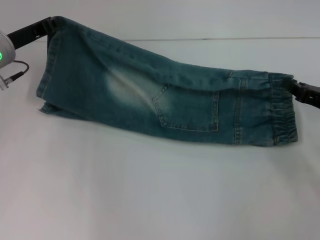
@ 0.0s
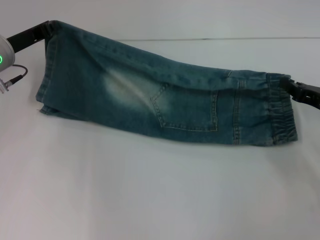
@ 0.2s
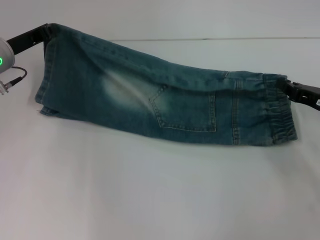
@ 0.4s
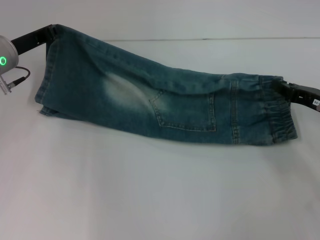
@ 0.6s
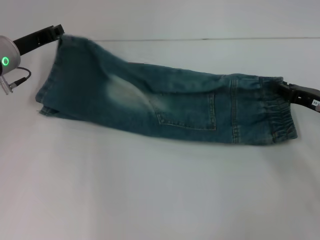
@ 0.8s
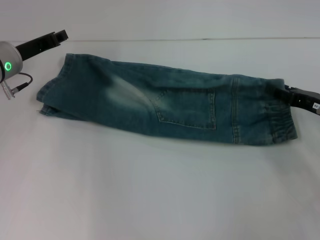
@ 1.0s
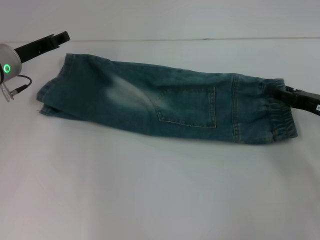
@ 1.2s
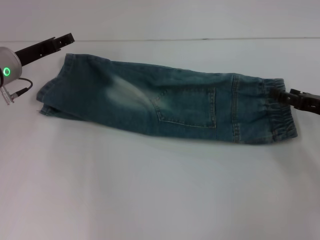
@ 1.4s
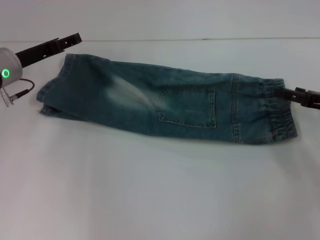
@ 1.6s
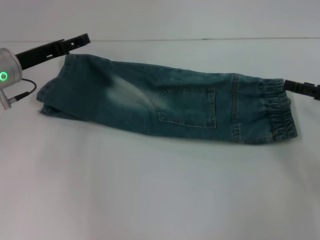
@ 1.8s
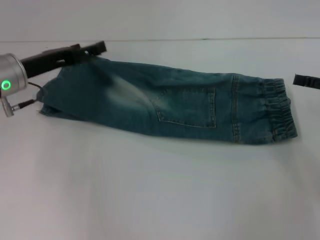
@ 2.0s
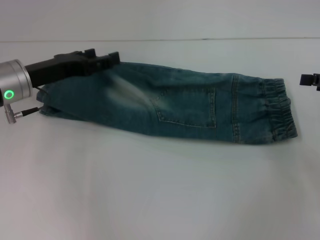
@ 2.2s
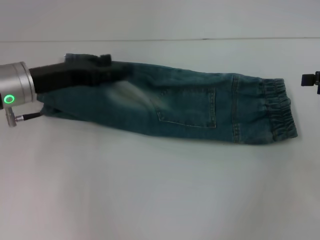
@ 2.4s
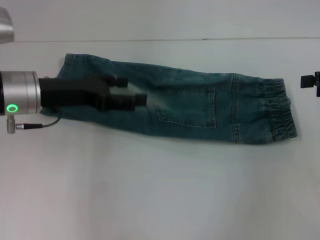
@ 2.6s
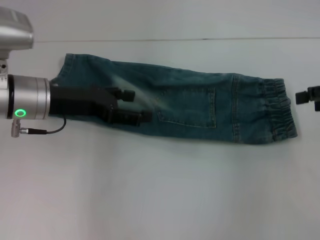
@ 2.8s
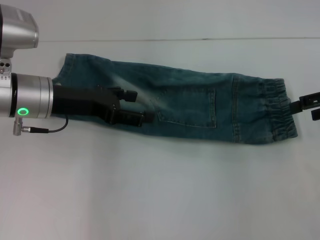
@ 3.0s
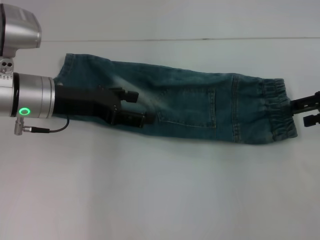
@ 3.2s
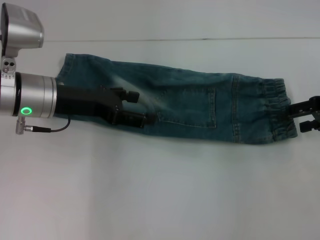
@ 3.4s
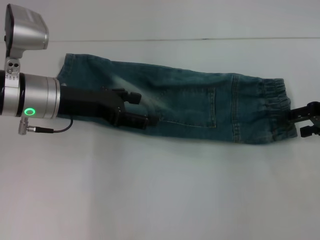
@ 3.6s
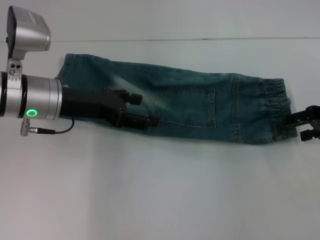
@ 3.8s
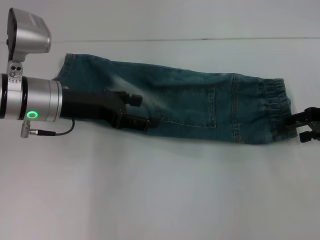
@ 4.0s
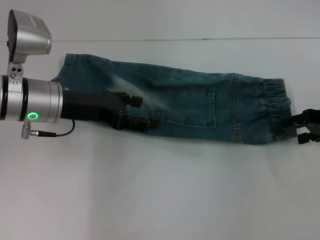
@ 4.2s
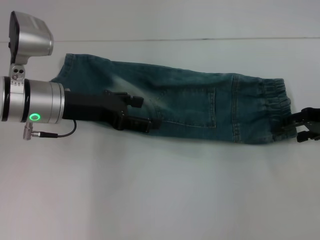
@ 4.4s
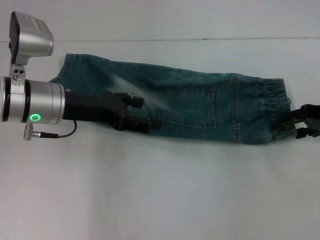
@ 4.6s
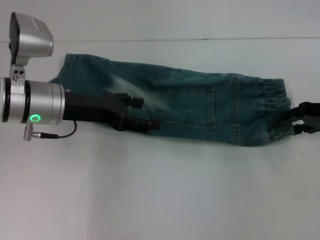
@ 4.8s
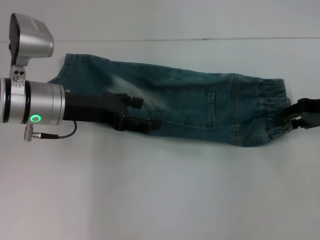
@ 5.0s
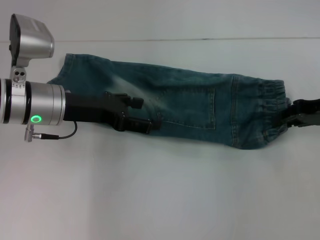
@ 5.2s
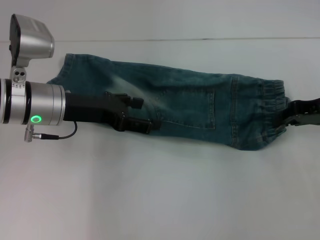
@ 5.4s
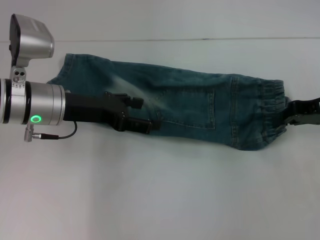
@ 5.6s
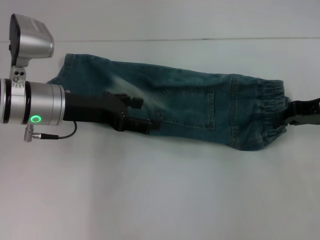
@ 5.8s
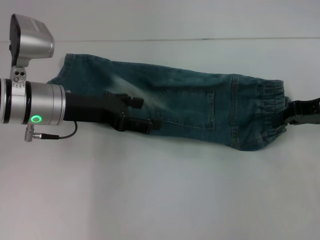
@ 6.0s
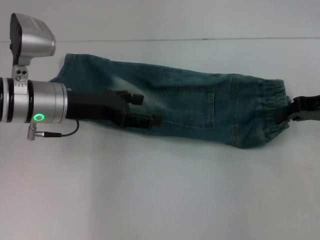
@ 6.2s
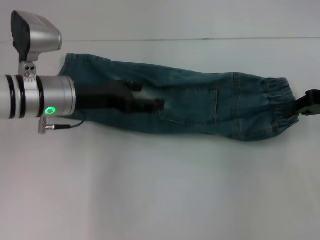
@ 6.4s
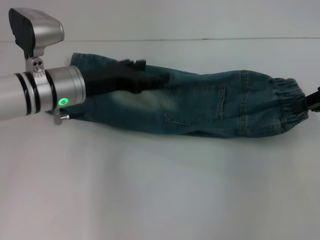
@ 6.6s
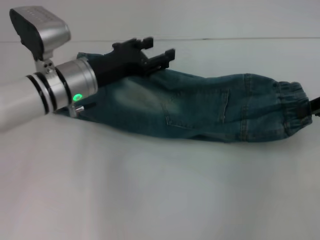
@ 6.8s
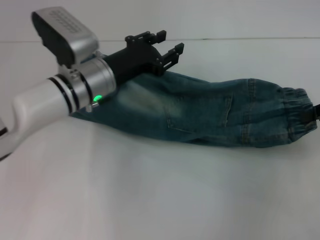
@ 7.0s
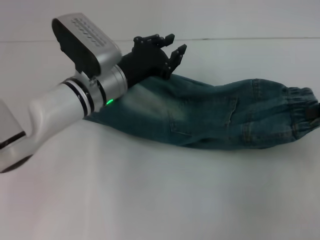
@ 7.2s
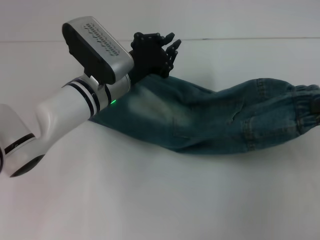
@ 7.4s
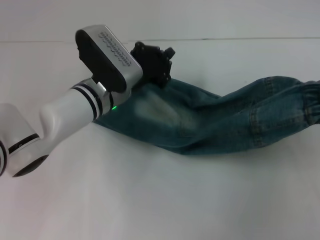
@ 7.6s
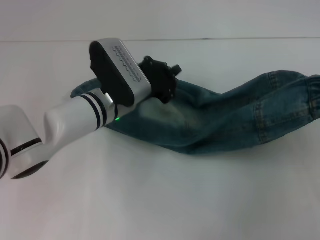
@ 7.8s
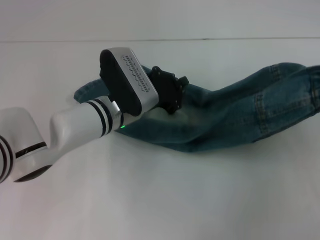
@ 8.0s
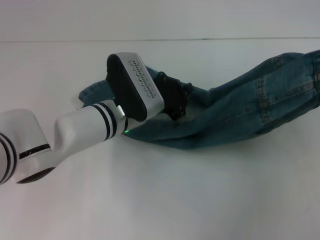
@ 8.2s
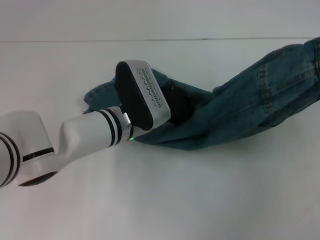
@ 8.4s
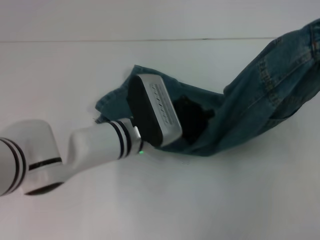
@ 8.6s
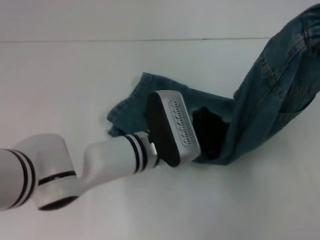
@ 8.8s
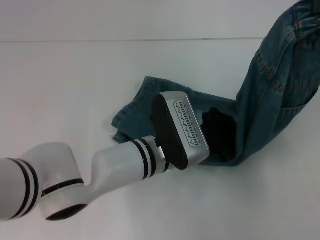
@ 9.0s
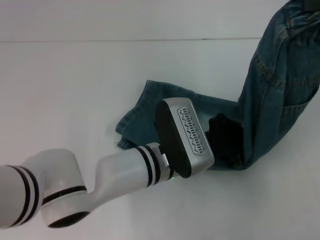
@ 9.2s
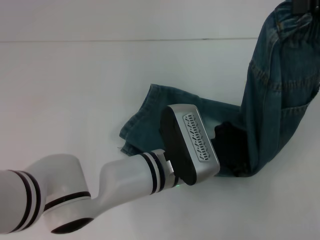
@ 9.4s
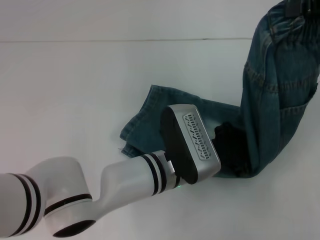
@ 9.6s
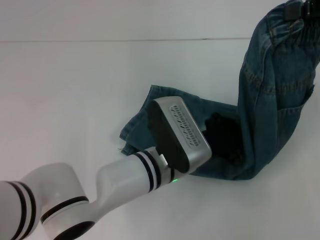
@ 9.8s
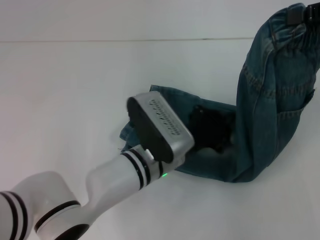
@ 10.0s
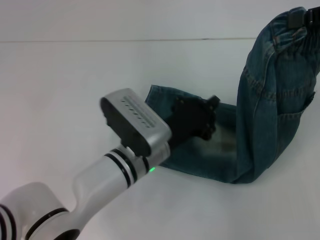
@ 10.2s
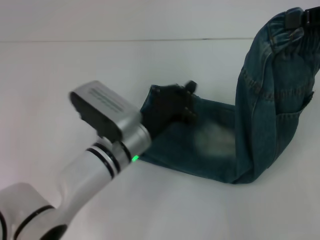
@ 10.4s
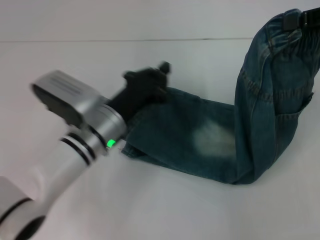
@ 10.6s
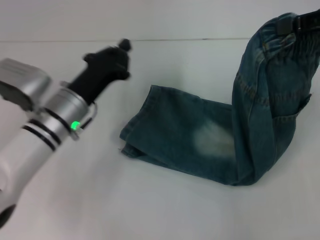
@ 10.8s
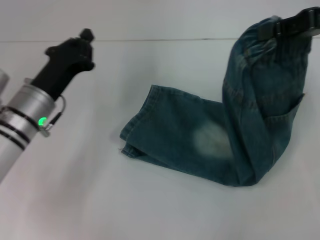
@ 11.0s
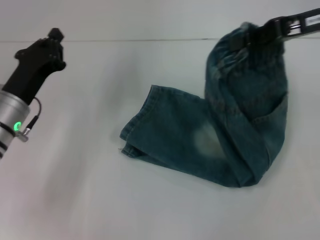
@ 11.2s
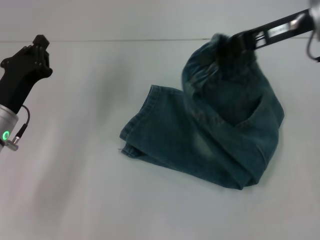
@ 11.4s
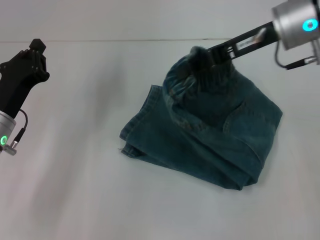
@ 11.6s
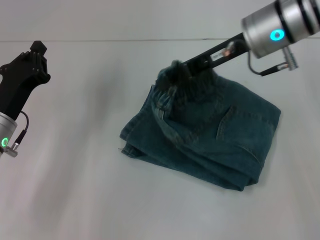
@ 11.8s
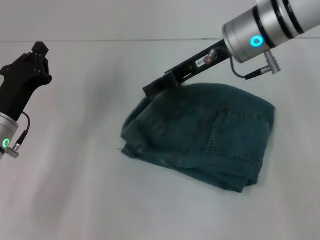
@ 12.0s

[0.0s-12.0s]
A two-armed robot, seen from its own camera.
Step, 1.0s to 1.2s: Fold upward with your right hand.
Step, 1.4s to 5.8s: Grab the waistband with your right hand.
Step, 6.0s to 9.8s: Press the middle of the pants with your left hand.
0.0s to 1.6s: The left gripper opens its fingers, while the right gripper opens.
1.6s to 3.0s: The right gripper moves upward, some 10 cm; the left gripper shifts roughly 10 cm backward and to the right.
3.0s to 4.4s: The right gripper travels downward by approximately 5 cm.
4.4s to 6.0s: The right gripper closes its fingers.
6.0s to 7.6s: The left gripper goes approximately 10 cm to the right and downward, and closes its fingers, while the right gripper is displaced upward, to the right and backward by some 10 cm.
7.6s to 9.0s: The right gripper is displaced upward by roughly 5 cm. Meanwhile the left gripper travels backward and to the right by about 10 cm.
9.0s to 10.4s: The left gripper travels to the left by some 5 cm.
10.4s to 12.0s: Both grippers move to the left, roughly 20 cm.

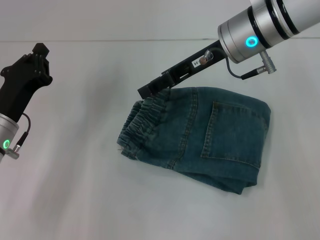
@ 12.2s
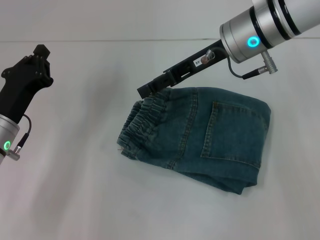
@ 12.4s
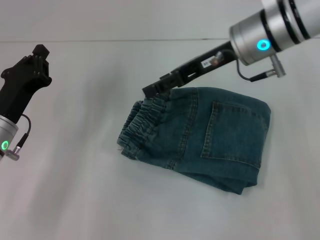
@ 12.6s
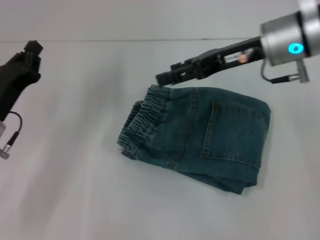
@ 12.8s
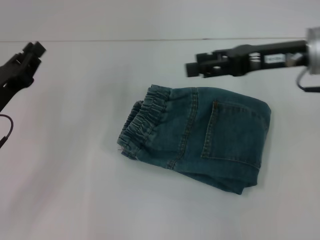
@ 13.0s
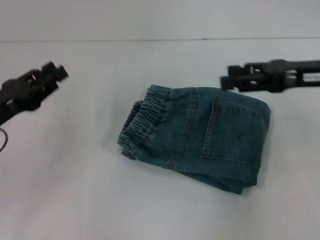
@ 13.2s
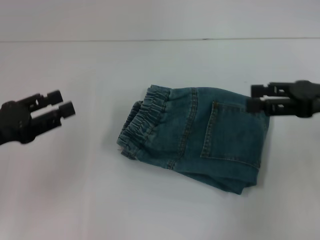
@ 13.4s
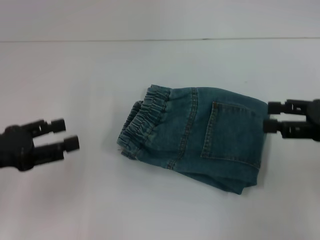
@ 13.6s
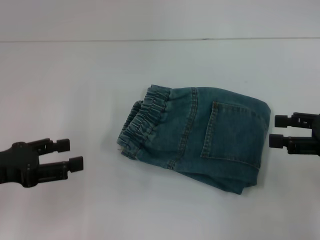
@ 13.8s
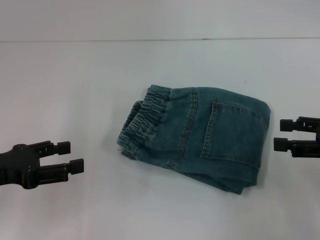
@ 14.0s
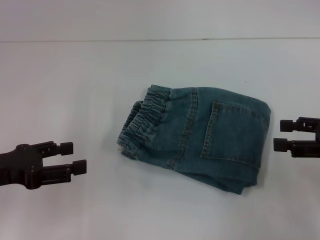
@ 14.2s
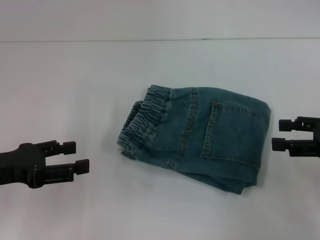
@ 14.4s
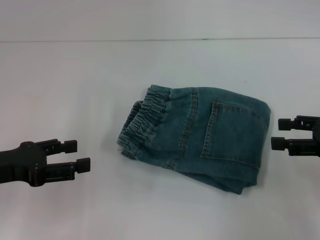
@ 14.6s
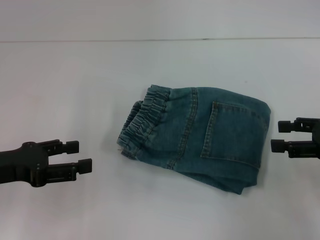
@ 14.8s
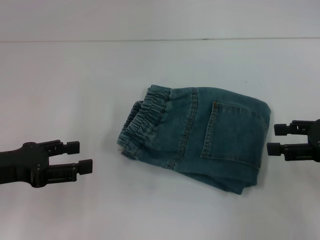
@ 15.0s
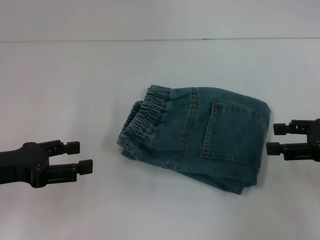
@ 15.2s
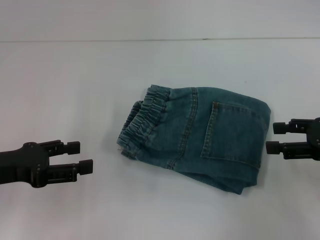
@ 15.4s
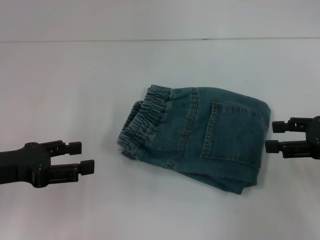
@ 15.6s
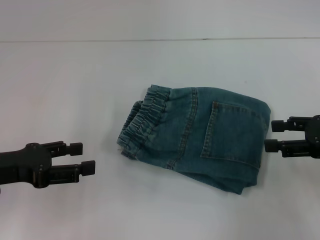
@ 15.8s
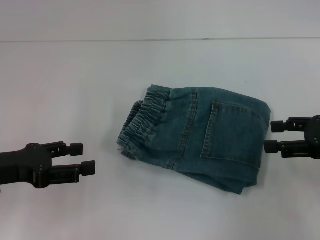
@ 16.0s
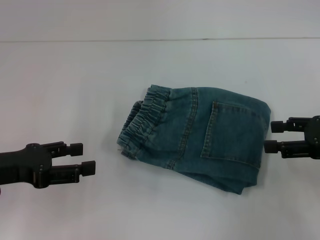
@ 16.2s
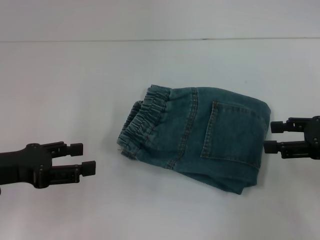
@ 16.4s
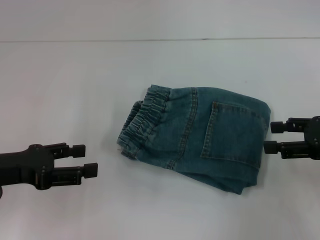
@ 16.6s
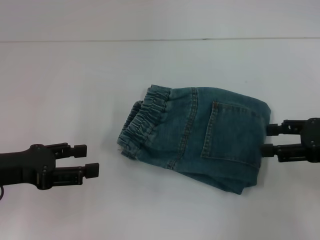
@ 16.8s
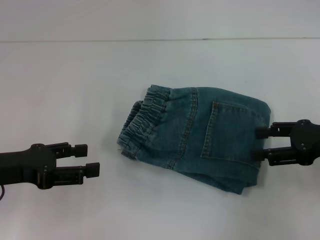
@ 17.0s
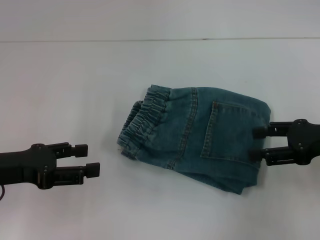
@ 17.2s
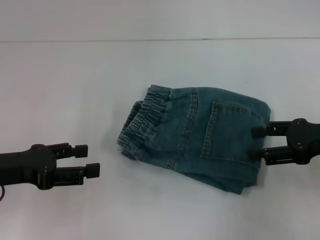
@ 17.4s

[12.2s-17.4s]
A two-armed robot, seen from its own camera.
12.2s to 14.0s: The left gripper heads backward, upward and to the left, covering some 10 cm, and opens its fingers. The right gripper shifts about 25 cm to the right and backward, and opens up.
14.0s to 17.4s: The grippers stay close to where they were, moving slightly.
